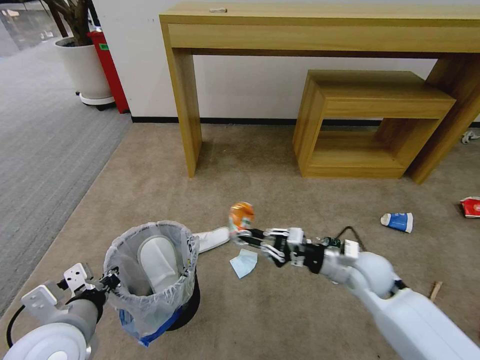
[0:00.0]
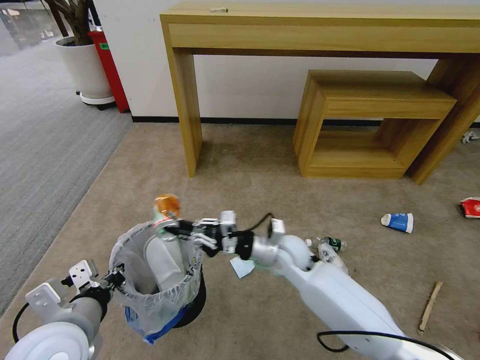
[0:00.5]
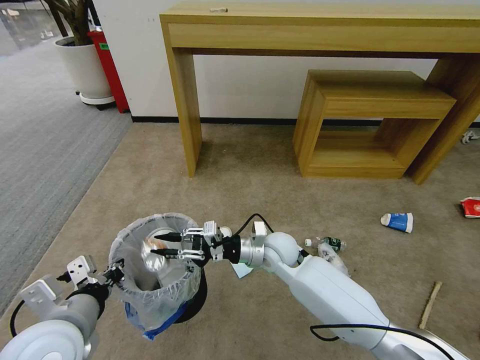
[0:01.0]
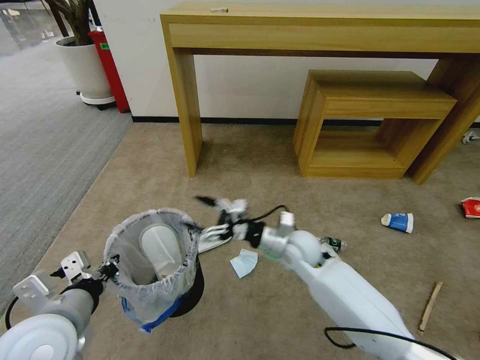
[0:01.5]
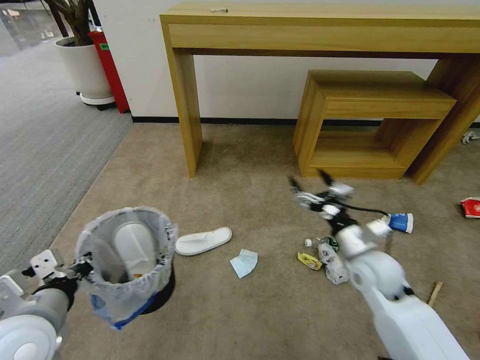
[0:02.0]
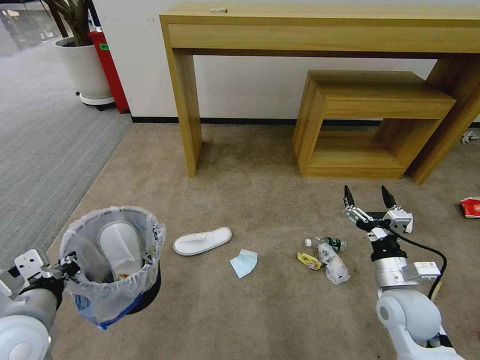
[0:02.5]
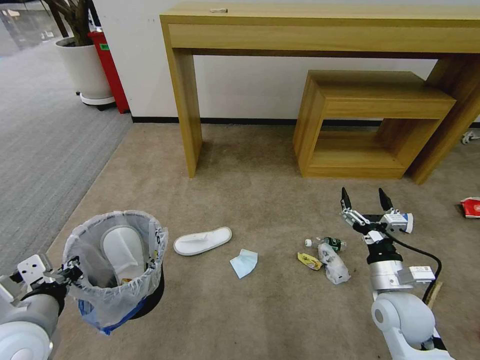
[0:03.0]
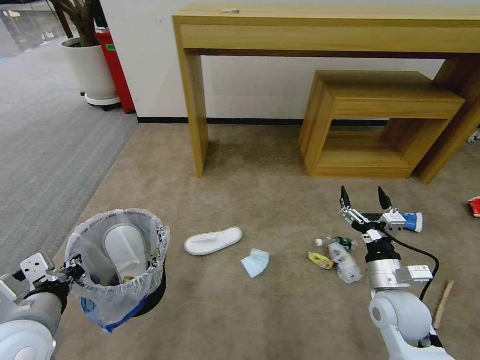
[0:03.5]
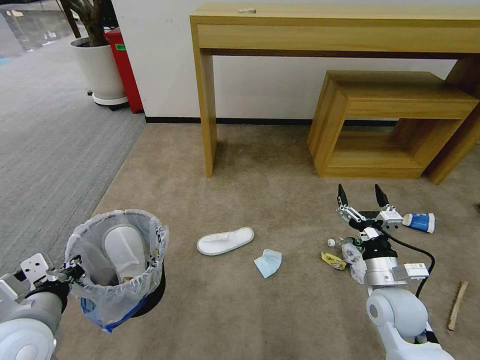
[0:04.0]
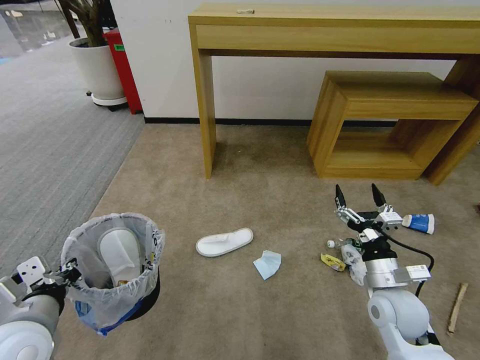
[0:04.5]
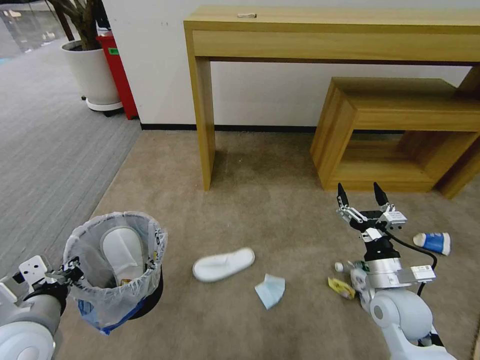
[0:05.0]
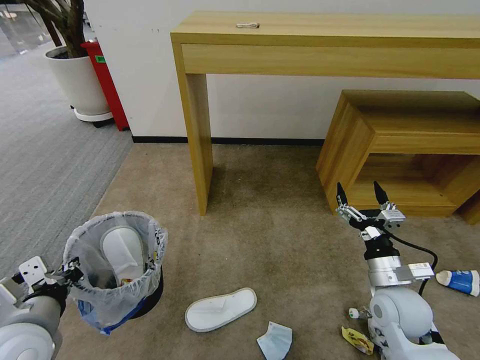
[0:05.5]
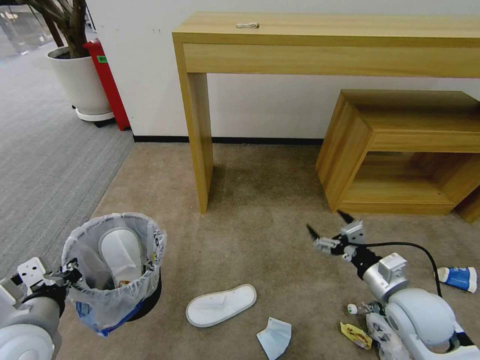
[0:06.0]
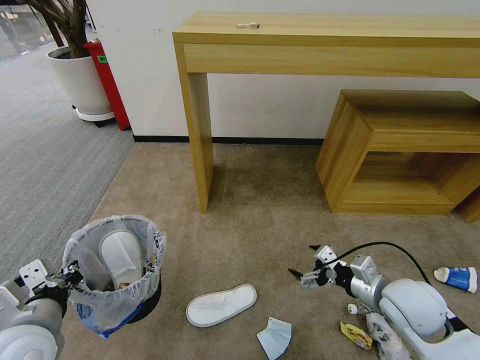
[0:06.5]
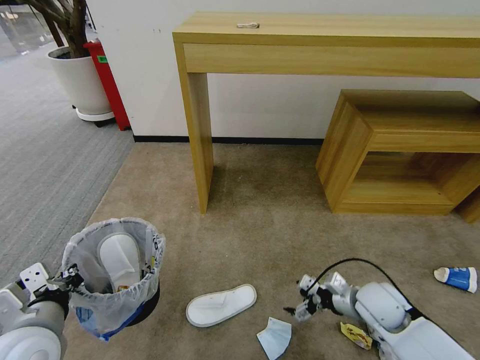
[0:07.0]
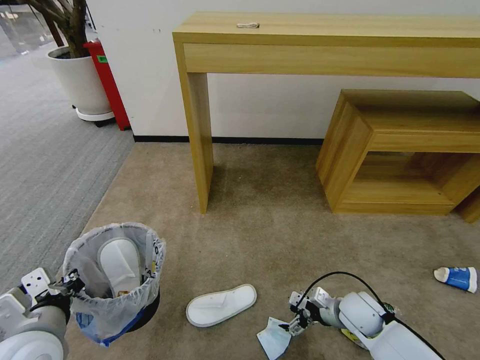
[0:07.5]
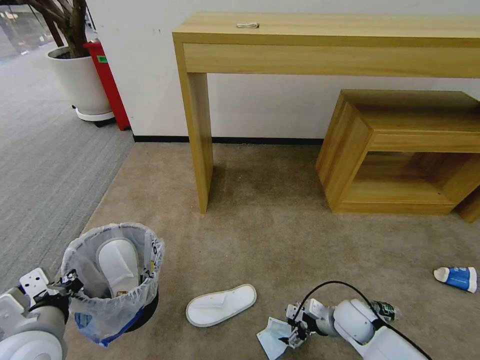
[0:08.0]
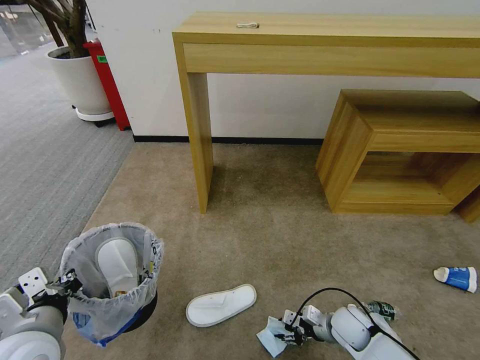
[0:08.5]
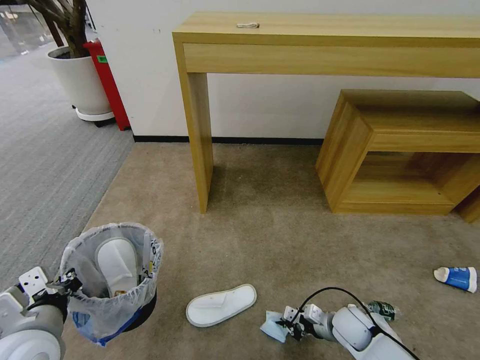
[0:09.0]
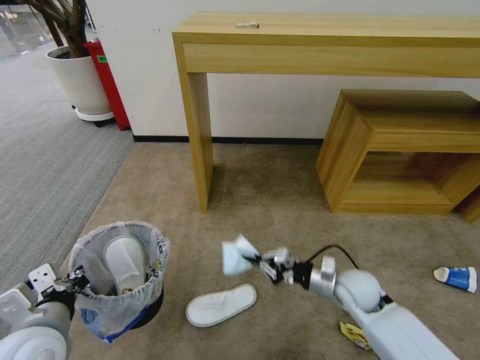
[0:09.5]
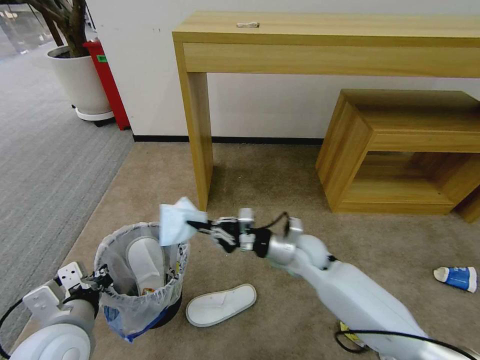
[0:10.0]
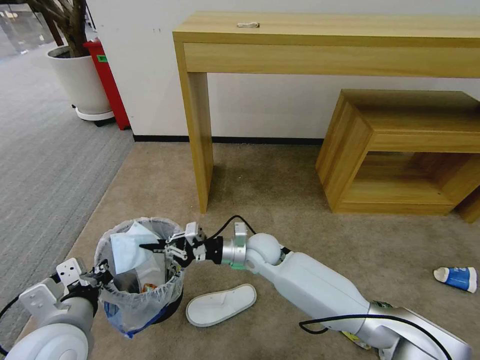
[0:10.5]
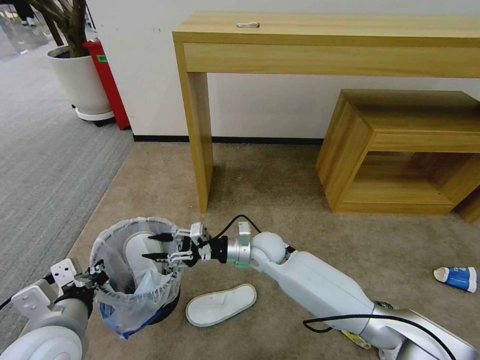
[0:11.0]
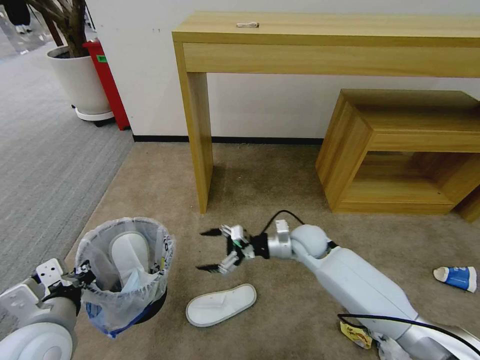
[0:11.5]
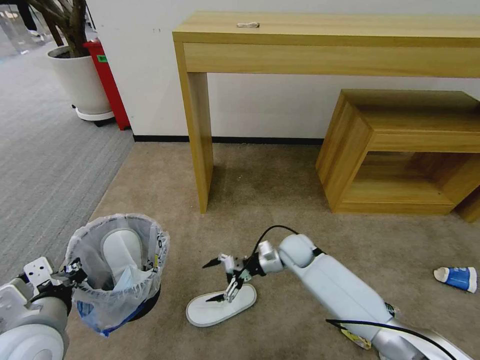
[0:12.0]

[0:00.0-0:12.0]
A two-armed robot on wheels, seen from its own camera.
Task of the whole recording: Pick up the trash bin and place the garbage on the floor into it.
0:00.0 to 0:02.0: The right gripper moves about 20 cm to the left and comes back, and opens up.
0:02.0 to 0:04.0: The right gripper moves backward, about 5 cm.
0:06.0 to 0:08.0: The right gripper travels downward by some 15 cm.
0:08.0 to 0:10.0: The right gripper goes about 20 cm upward, to the left and forward, and closes up.
0:10.0 to 0:12.0: The right gripper shifts some 10 cm downward and forward, reaches roughly 10 cm to the left, then returns, and opens its fingers.

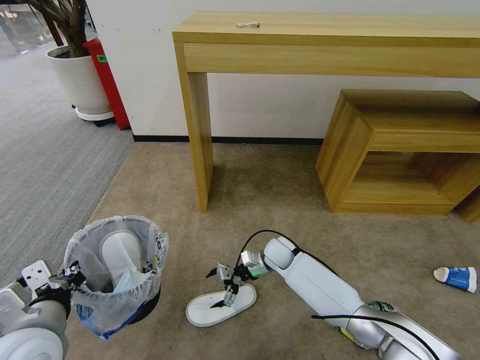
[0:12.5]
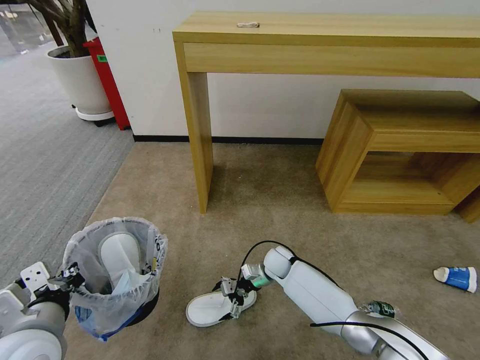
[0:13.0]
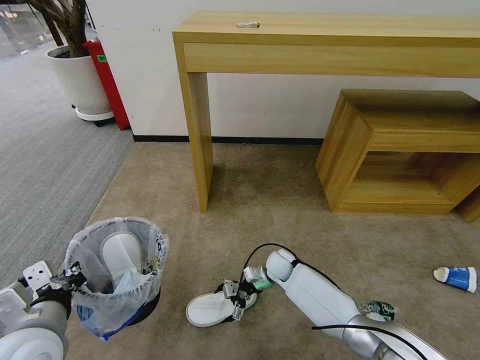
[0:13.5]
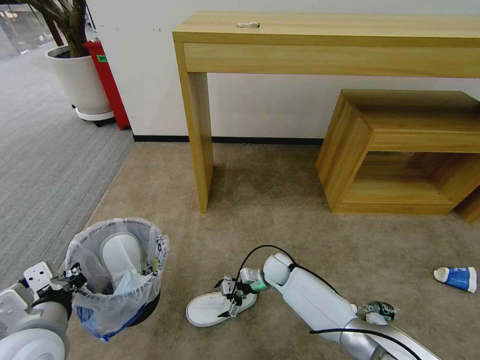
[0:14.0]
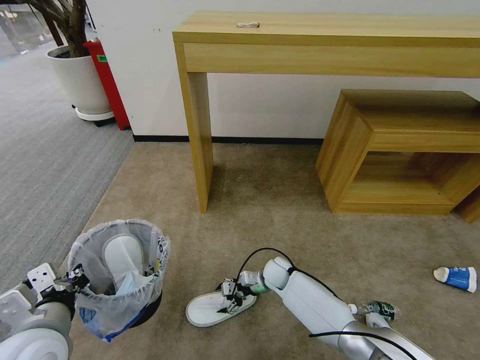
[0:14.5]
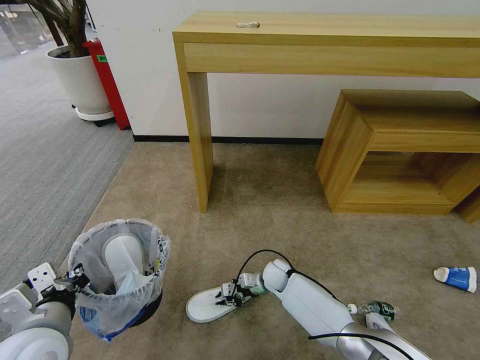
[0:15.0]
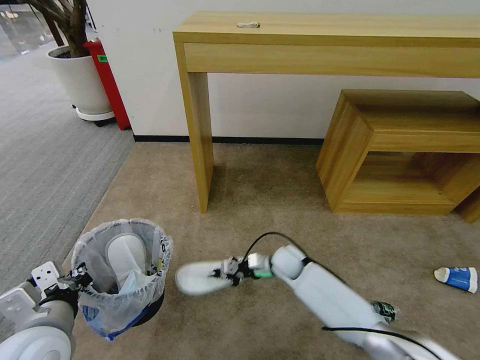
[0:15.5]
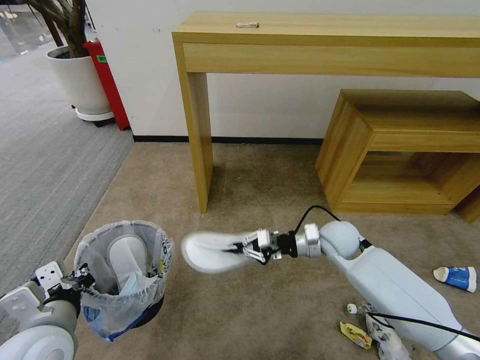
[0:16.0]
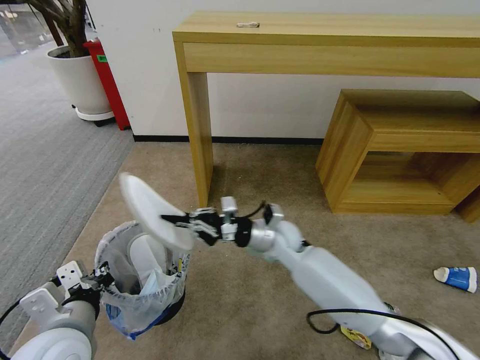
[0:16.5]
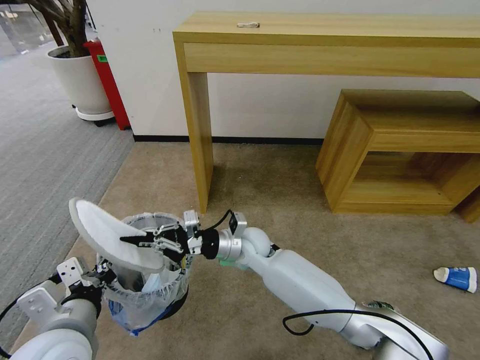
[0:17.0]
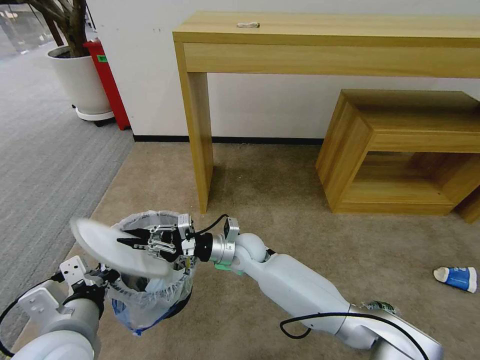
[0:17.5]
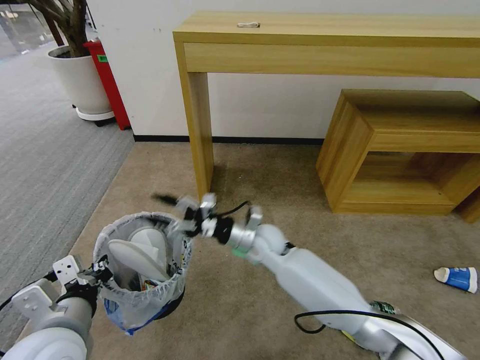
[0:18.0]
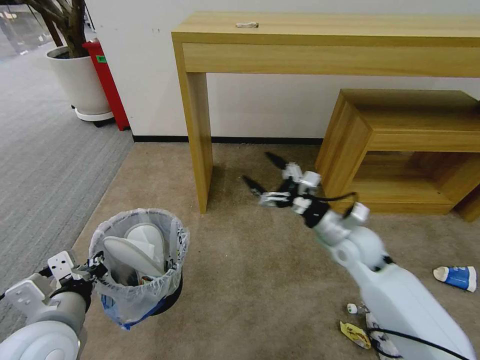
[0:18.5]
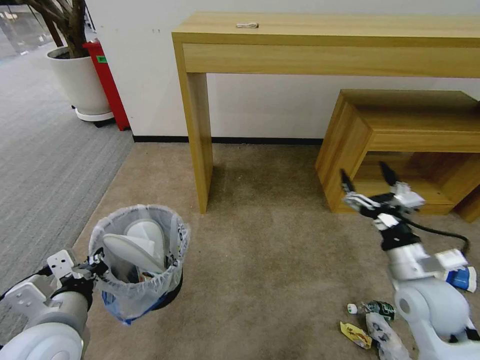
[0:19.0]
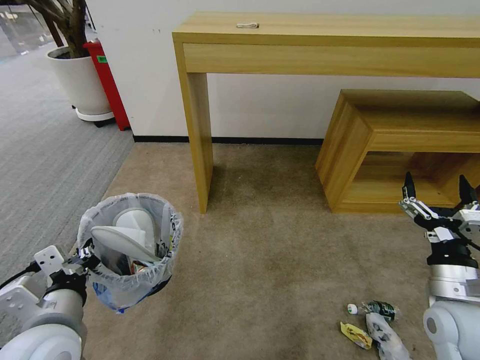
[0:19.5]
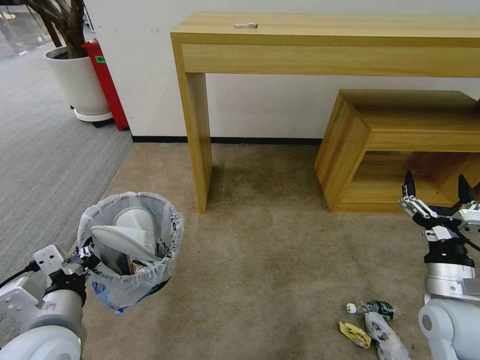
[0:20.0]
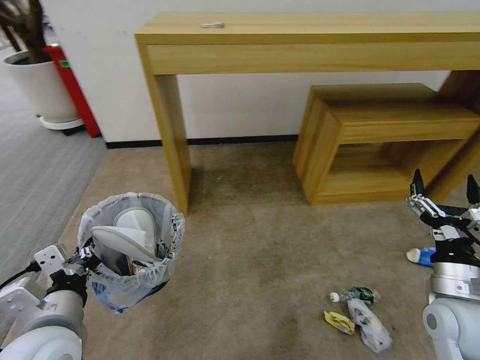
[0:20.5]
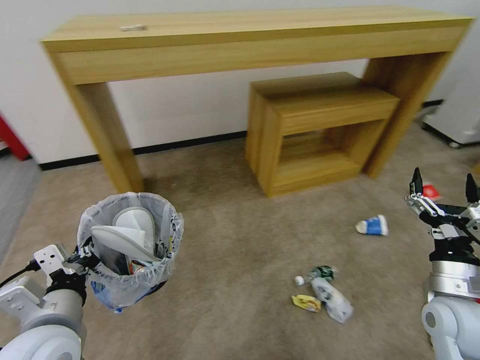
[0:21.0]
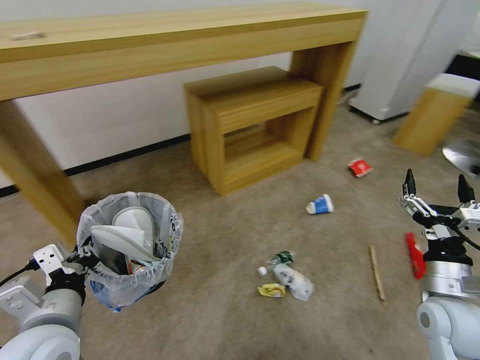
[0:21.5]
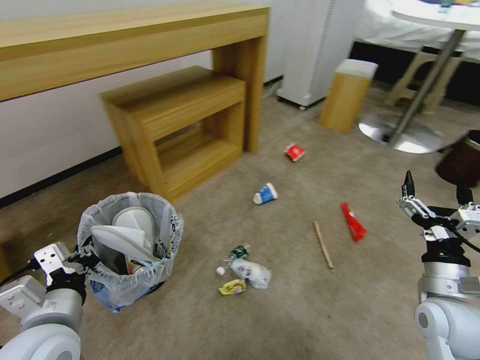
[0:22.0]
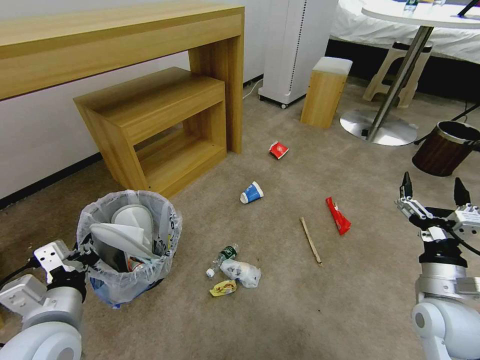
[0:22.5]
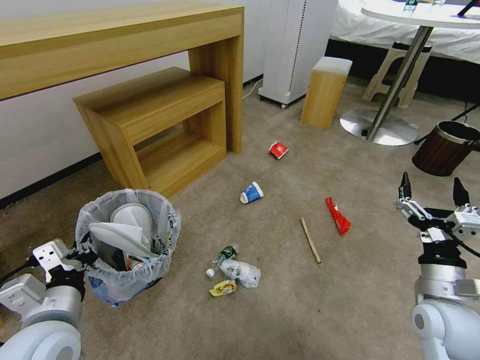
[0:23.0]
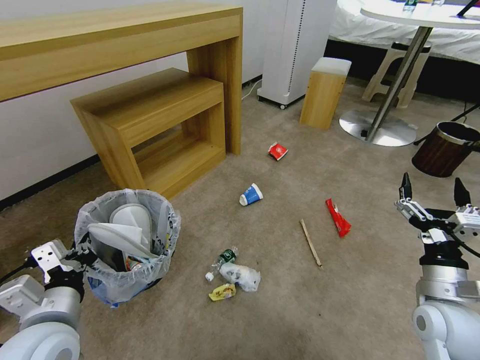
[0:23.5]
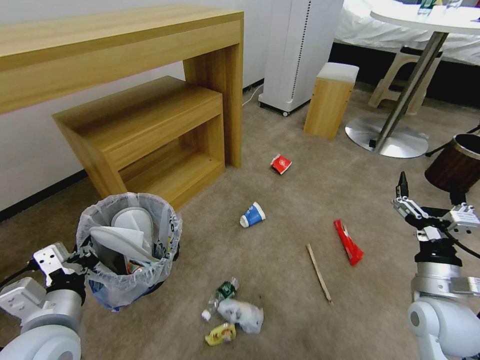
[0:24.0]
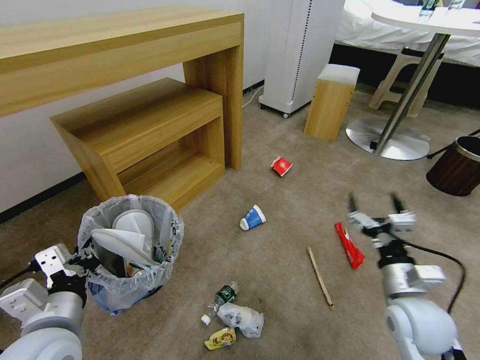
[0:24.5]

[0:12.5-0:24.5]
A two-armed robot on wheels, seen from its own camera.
Task of the whole recording: Pick up the trash bin and place the garbage on the floor into it.
0:12.5 to 0:14.5: The right gripper moves downward, roughly 5 cm.
0:14.5 to 0:16.5: The right gripper goes roughly 20 cm upward, and closes its fingers.
0:16.5 to 0:18.5: The right gripper goes some 10 cm to the right, and opens up.
0:18.5 to 0:20.5: The right gripper is displaced backward and to the right by some 20 cm.

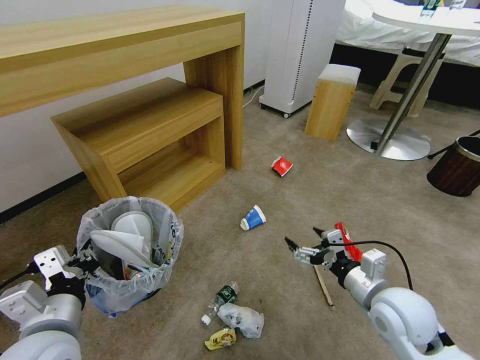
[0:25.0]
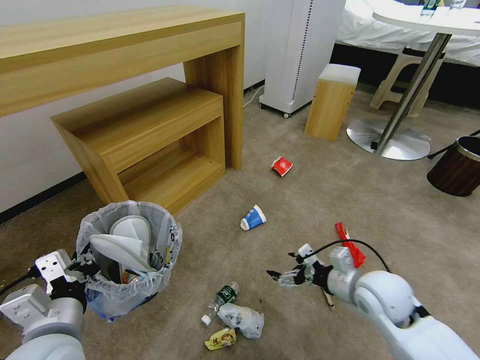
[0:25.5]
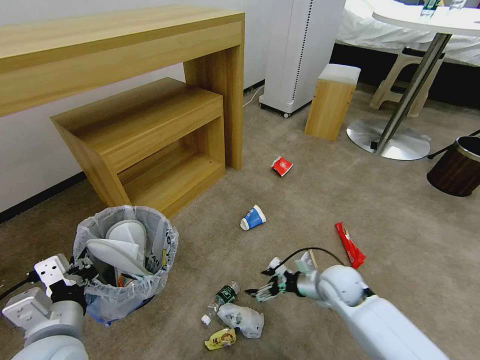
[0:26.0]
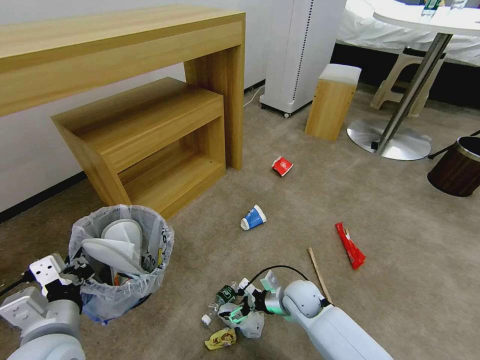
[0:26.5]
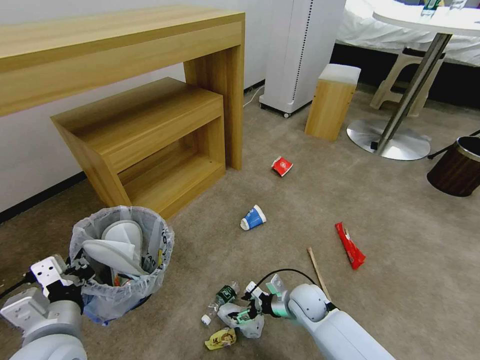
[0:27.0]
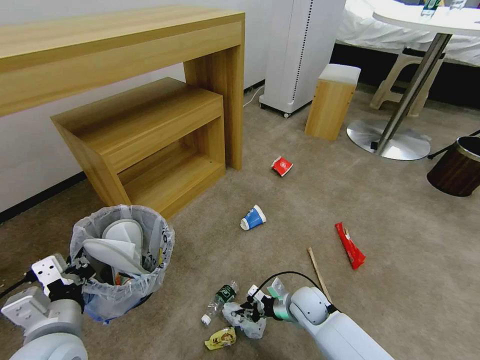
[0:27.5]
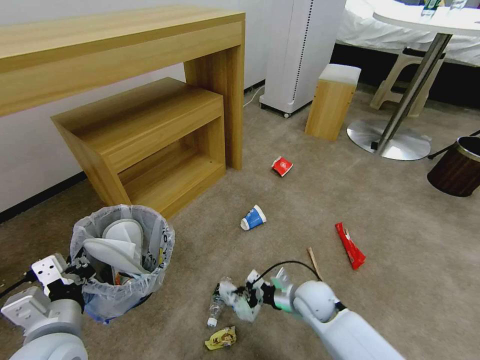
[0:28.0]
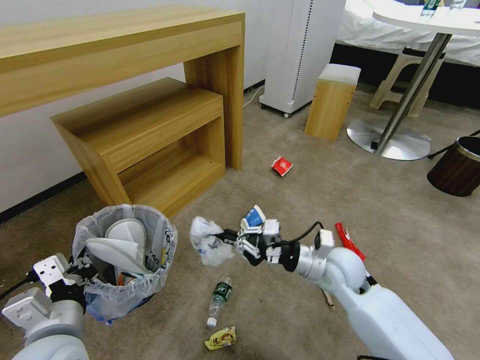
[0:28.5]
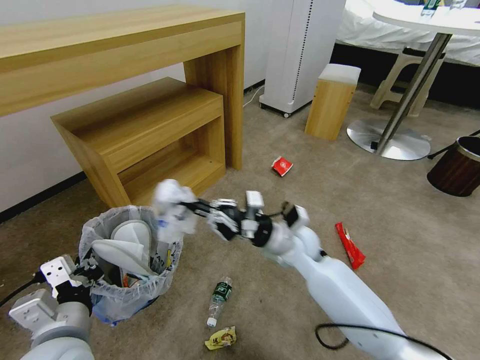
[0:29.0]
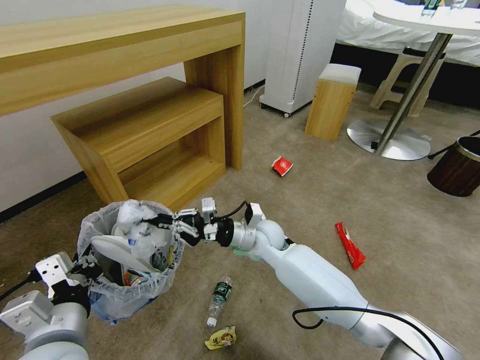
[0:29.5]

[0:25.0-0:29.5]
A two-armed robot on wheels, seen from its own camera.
Task of the whole recording: Pick up the trash bin and place the garbage on the floor into it.
0:25.0 to 0:27.0: The right gripper is displaced downward, to the left and forward by some 25 cm.
0:27.0 to 0:29.5: The right gripper moves upward, to the left and forward, approximately 20 cm, and closes up.
